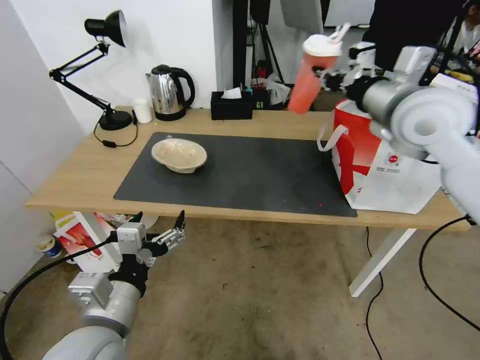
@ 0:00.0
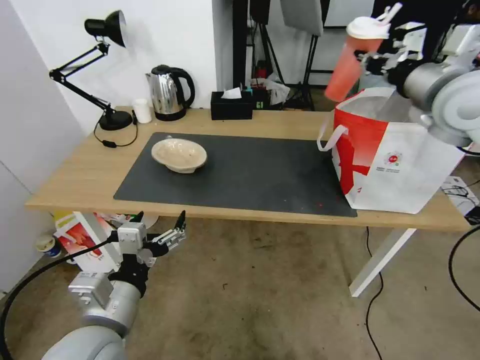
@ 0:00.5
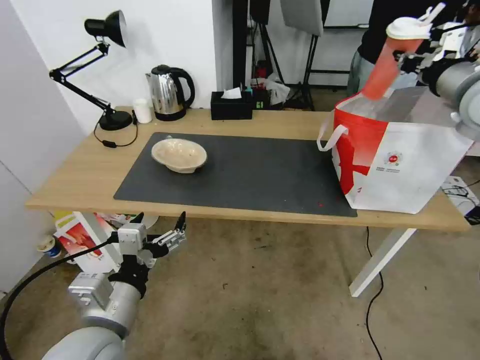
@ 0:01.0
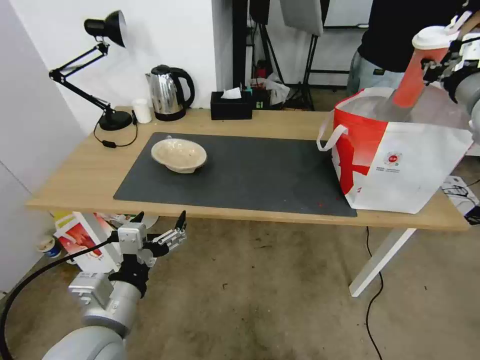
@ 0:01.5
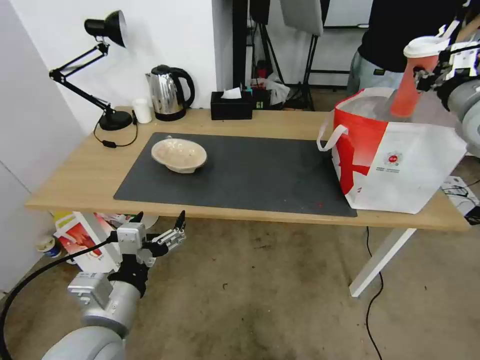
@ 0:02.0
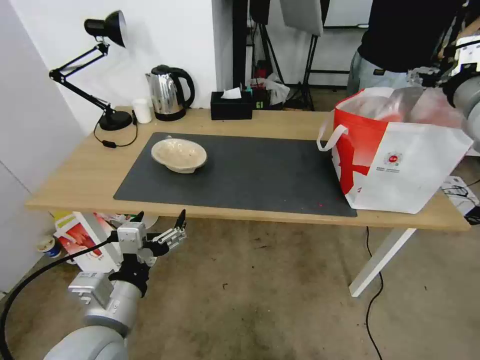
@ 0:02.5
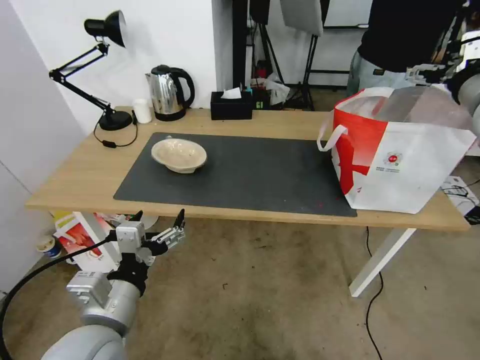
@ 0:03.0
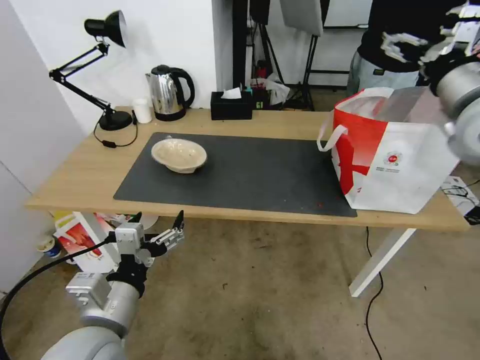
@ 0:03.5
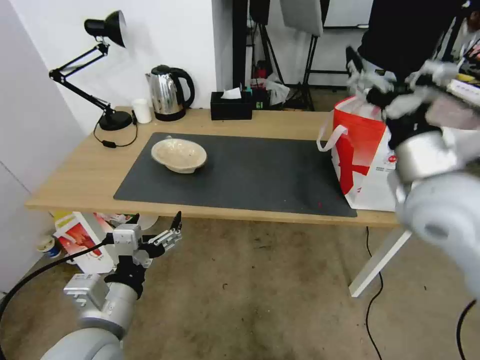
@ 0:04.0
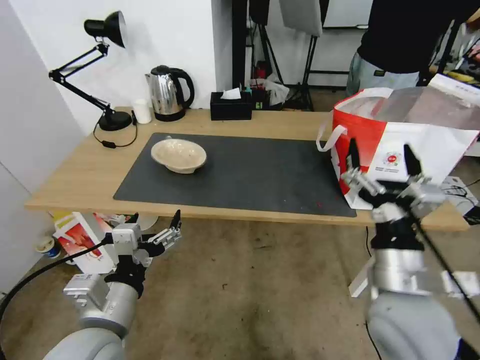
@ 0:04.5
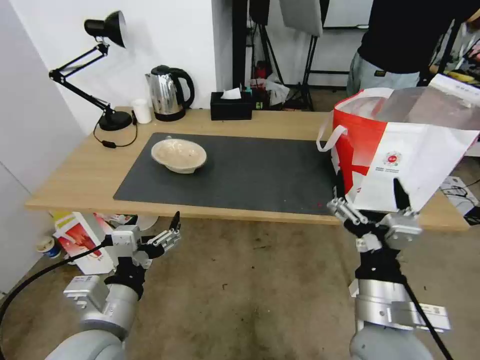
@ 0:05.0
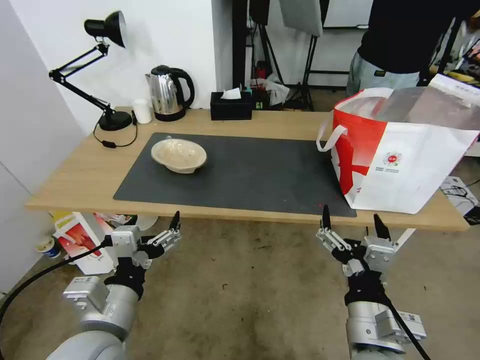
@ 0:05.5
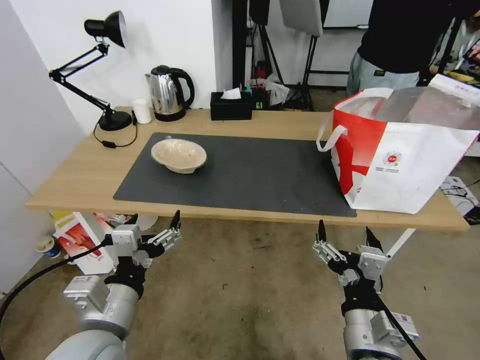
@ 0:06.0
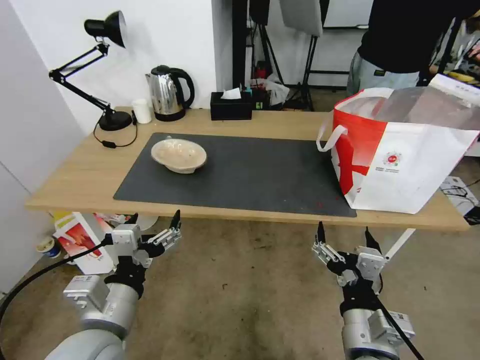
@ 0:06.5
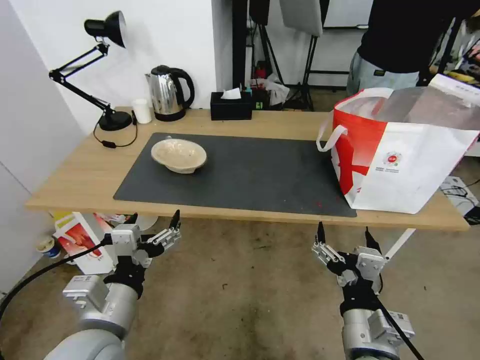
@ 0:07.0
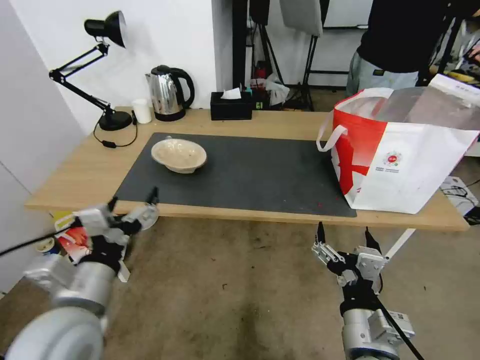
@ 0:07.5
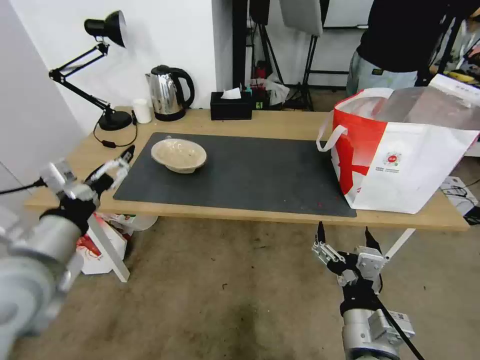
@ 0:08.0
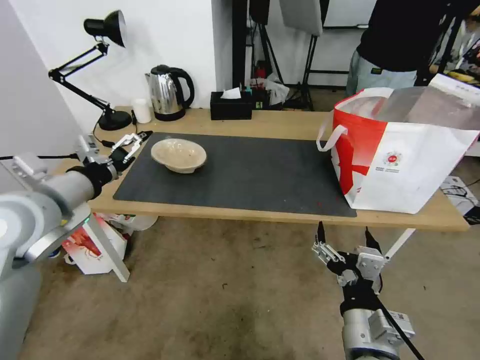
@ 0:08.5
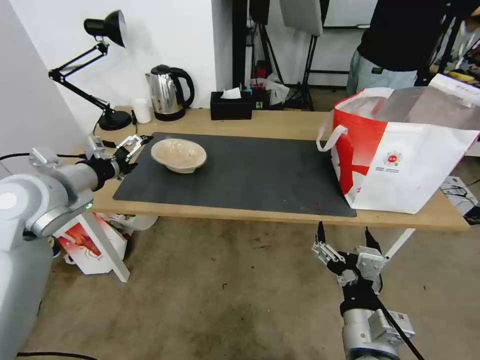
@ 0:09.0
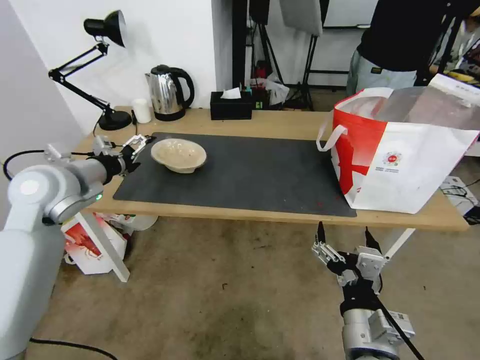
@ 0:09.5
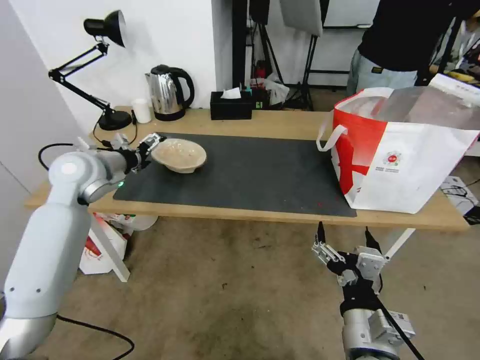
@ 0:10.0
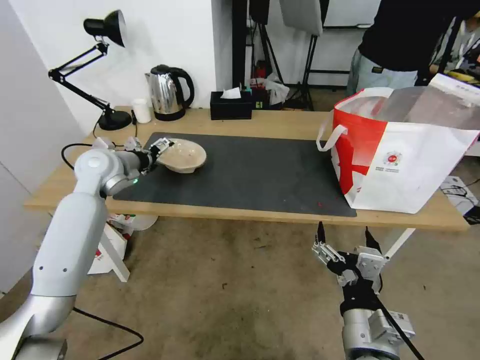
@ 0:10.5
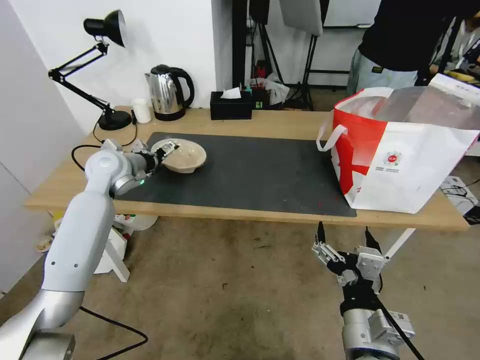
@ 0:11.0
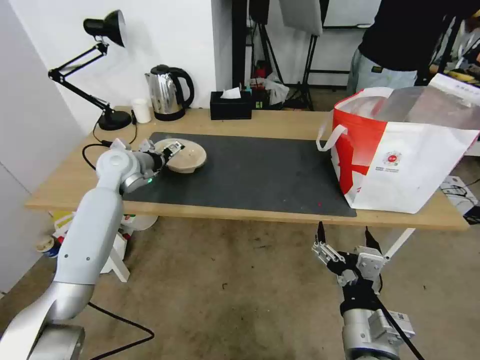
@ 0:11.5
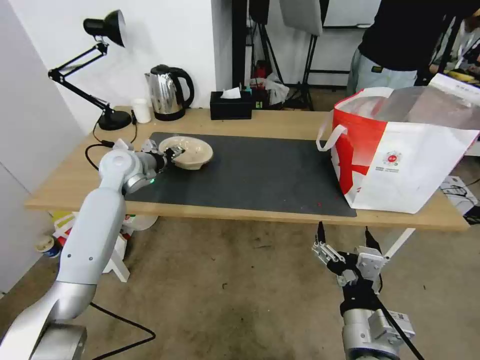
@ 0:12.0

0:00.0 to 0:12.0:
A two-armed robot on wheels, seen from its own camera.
Task of the whole recording: Pick up the trash from the table and place it into the takeout bag.
0:00.0 to 0:02.0: The right gripper shifts roughly 10 cm to the right.
0:02.0 to 0:04.0: The right gripper goes roughly 20 cm to the left, backward and downward, and opens up.
0:04.0 to 0:06.0: The right gripper is displaced backward, downward and to the left by roughly 25 cm.
0:06.0 to 0:08.0: The left gripper shifts roughly 15 cm upward, to the left and forward.
0:08.0 to 0:10.0: The left gripper is displaced forward by about 25 cm.
0:10.0 to 0:12.0: The left gripper goes about 5 cm forward, and closes.

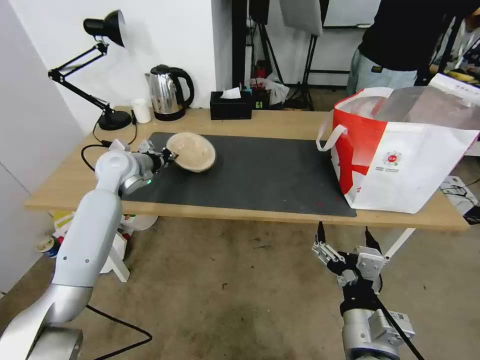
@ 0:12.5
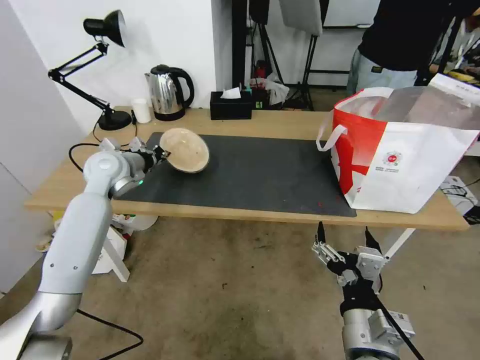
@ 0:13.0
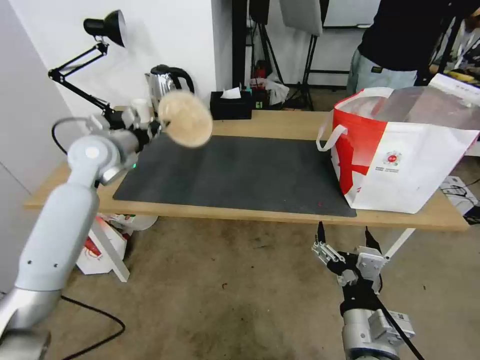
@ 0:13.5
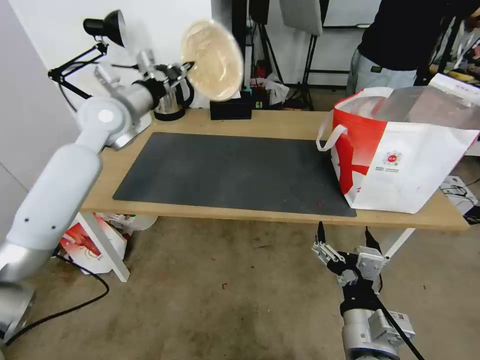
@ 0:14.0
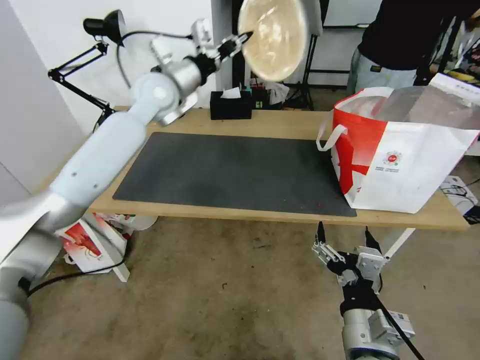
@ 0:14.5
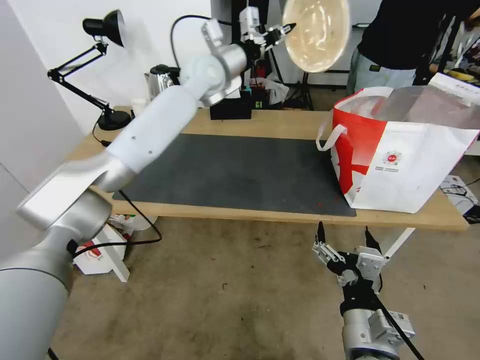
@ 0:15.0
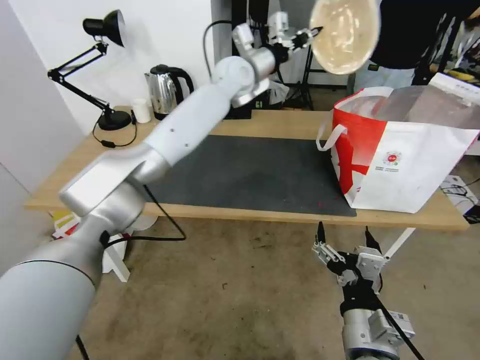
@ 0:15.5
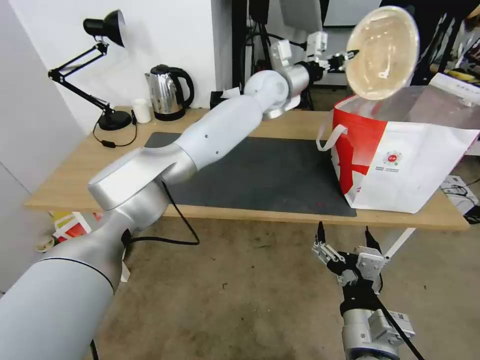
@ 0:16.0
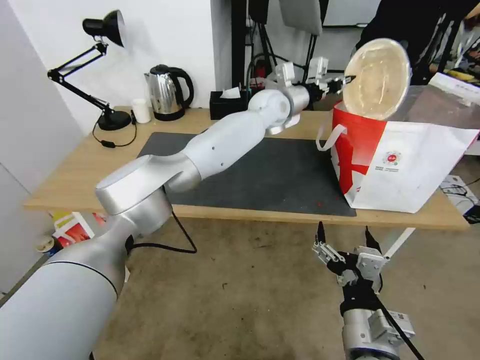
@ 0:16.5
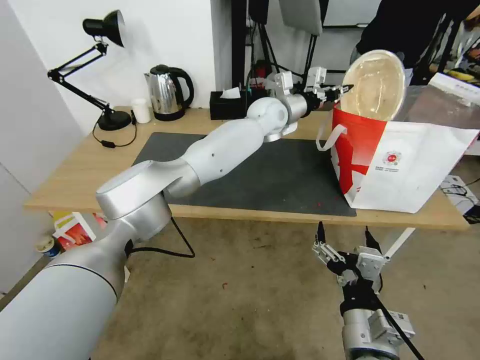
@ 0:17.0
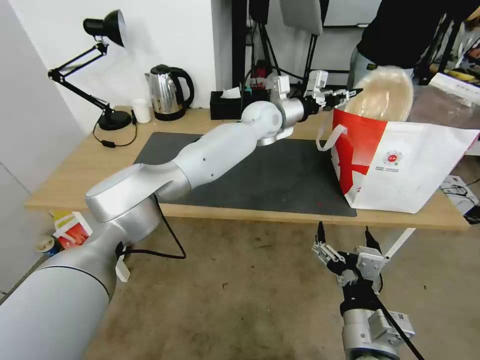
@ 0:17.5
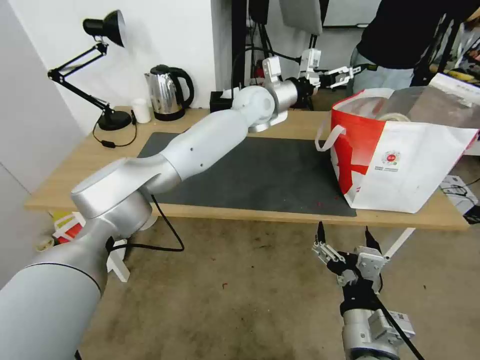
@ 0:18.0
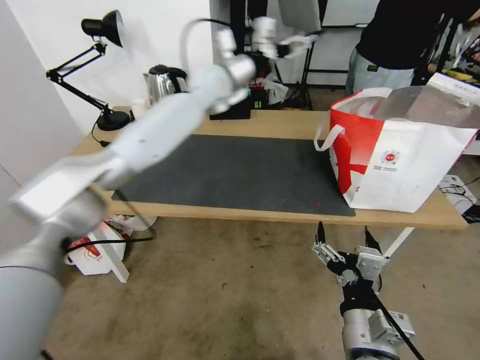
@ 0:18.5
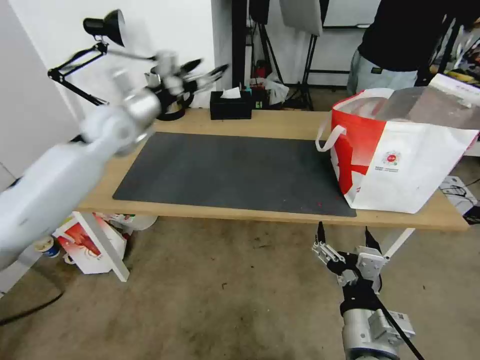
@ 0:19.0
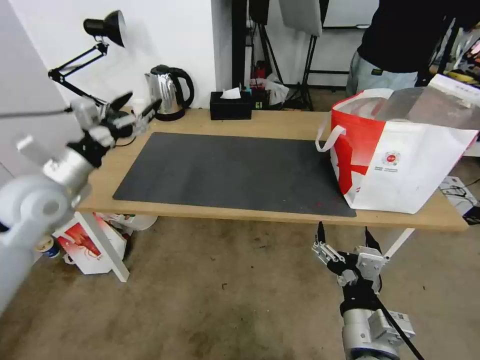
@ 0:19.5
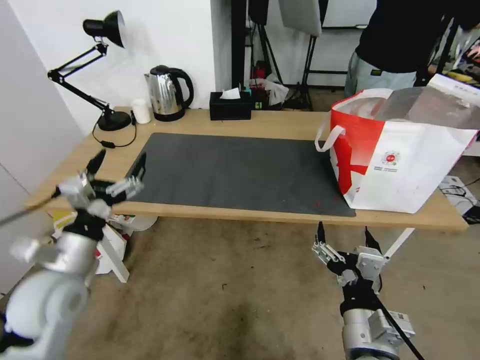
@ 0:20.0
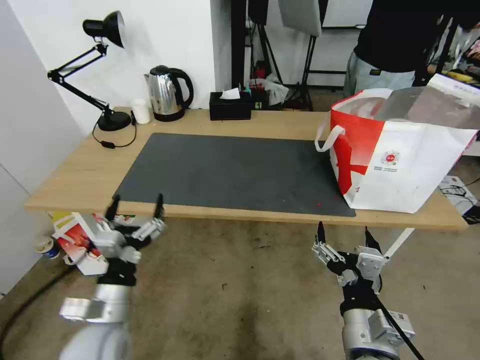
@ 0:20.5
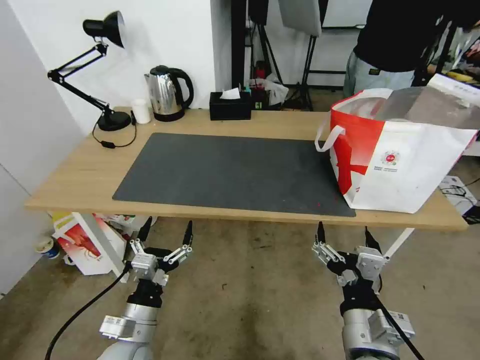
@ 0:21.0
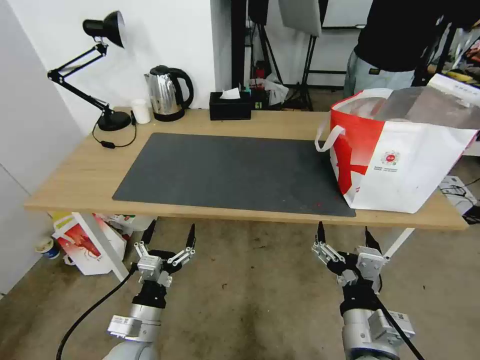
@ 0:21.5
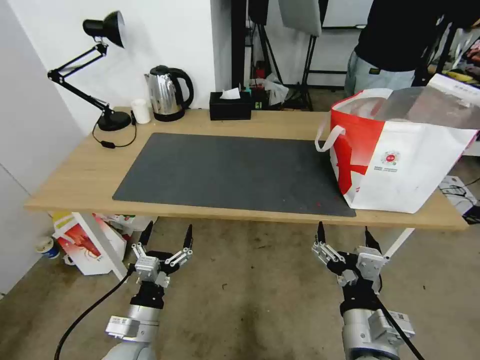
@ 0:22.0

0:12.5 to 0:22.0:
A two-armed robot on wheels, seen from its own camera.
Task of the whole recording: Pick up the trash from the table and place it into the takeout bag.
0:12.5 to 0:14.5: The left gripper goes approximately 20 cm upward and to the right.
0:14.5 to 0:16.5: The left gripper goes roughly 25 cm to the right.
0:16.5 to 0:18.0: The left gripper opens up.
0:18.0 to 0:20.0: The left gripper shifts some 50 cm backward and to the left.
0:20.0 to 0:22.0: The left gripper travels downward, to the right and backward by about 20 cm.

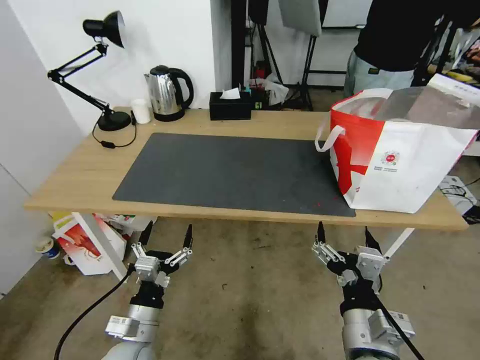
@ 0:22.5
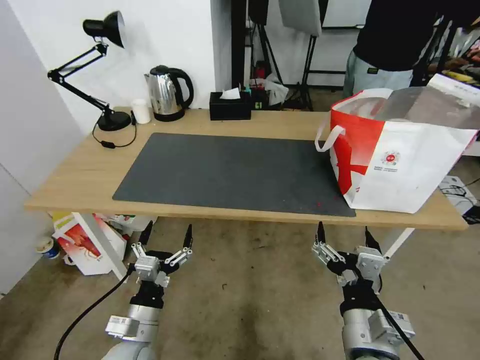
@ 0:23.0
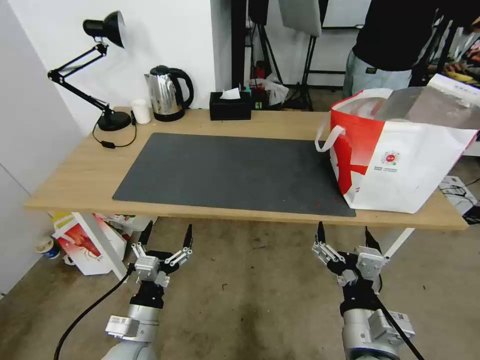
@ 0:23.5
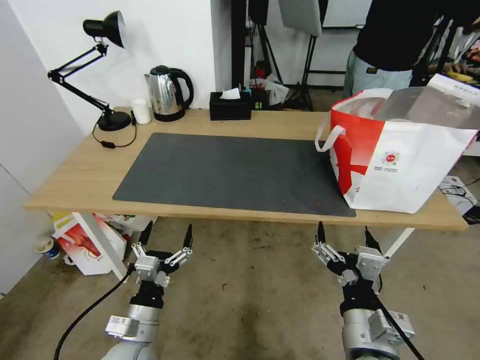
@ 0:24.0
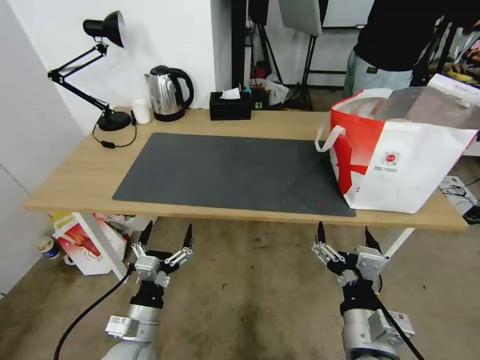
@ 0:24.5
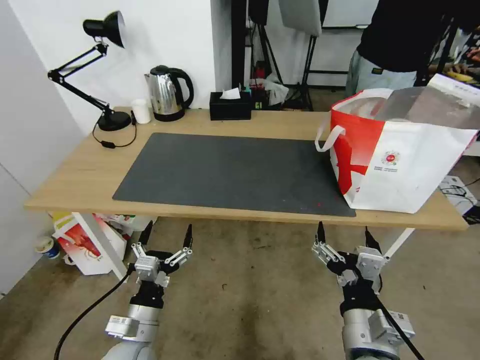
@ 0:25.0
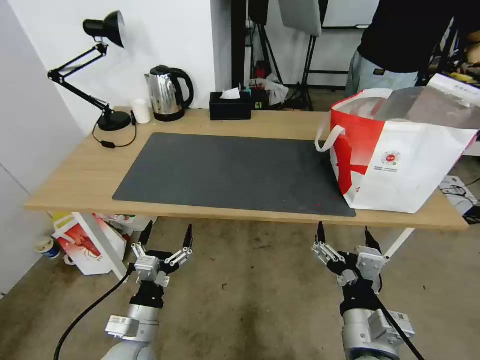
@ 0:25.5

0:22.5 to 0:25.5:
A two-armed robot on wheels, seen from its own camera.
Task of the whole recording: Pick up the trash from the table and place it into the takeout bag.
0:22.5 to 0:25.5: Both grippers stay put.

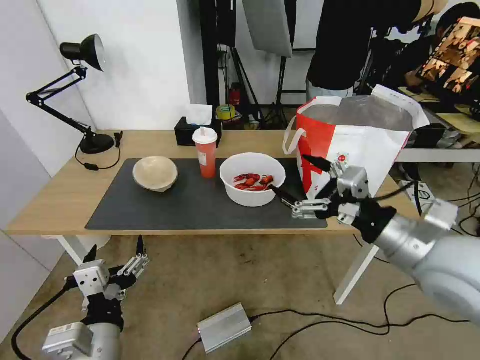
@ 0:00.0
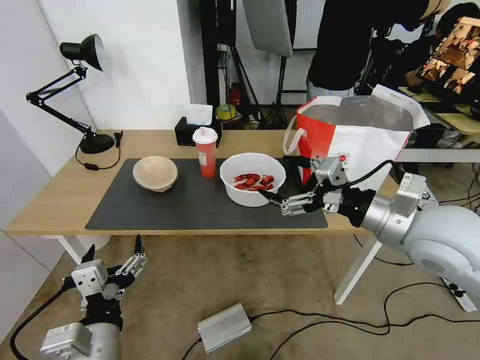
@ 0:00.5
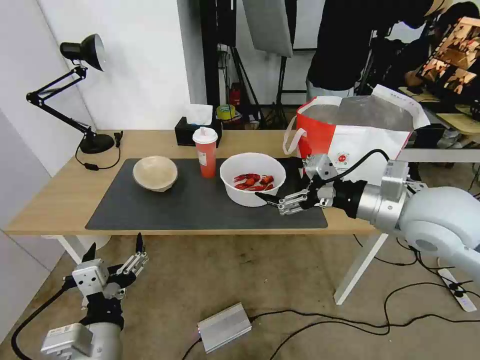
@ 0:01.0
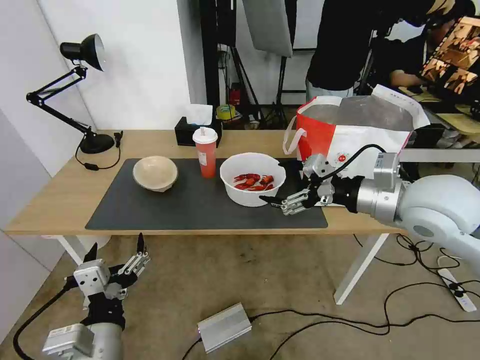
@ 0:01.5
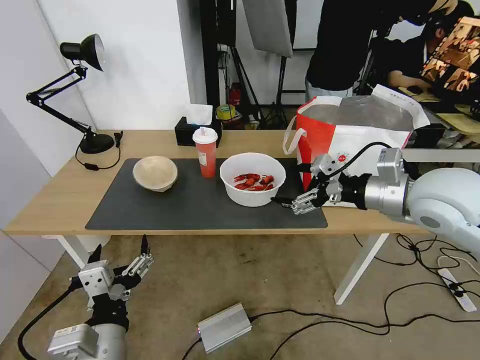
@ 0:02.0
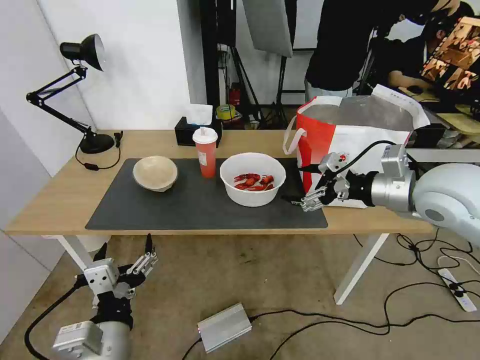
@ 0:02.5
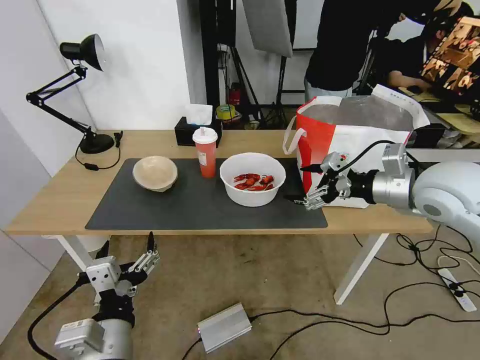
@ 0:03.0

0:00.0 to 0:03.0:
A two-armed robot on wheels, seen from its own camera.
Task of the whole recording: Pick up the trash from the table and place it into the takeout bag.
0:00.0 to 0:01.5: The right gripper heads forward, covering some 10 cm.
0:01.5 to 0:03.0: The right gripper moves about 5 cm.
